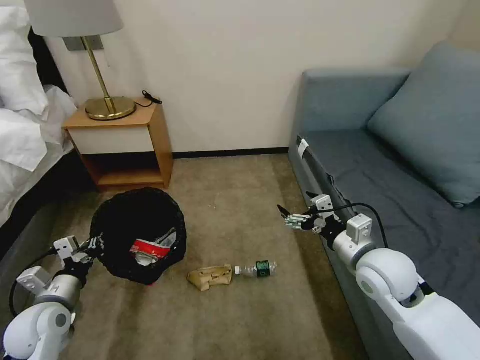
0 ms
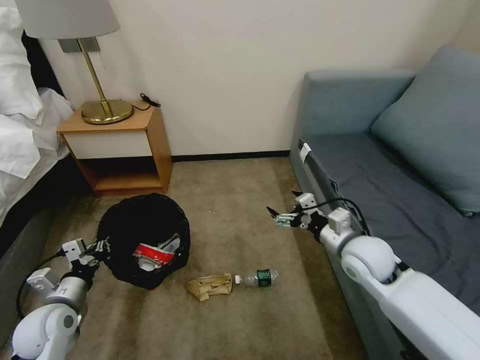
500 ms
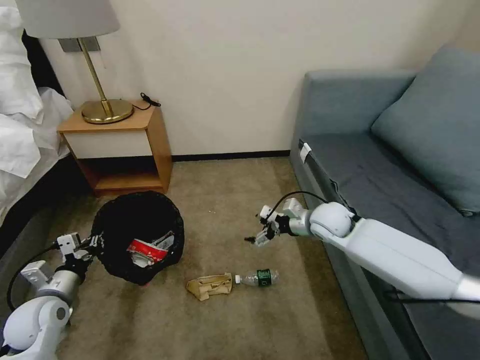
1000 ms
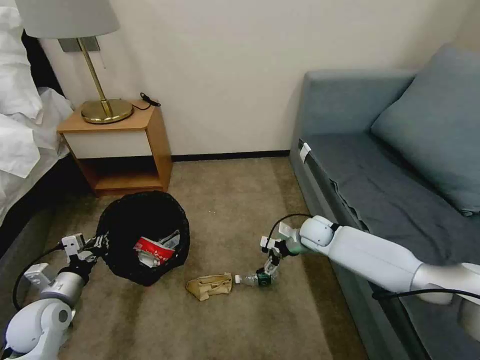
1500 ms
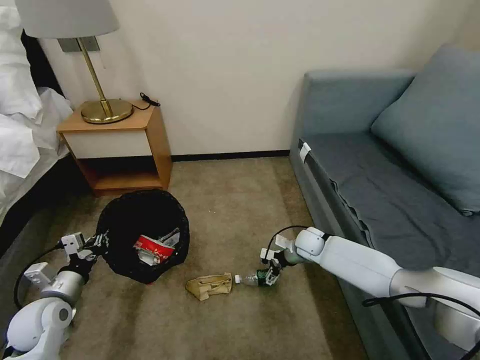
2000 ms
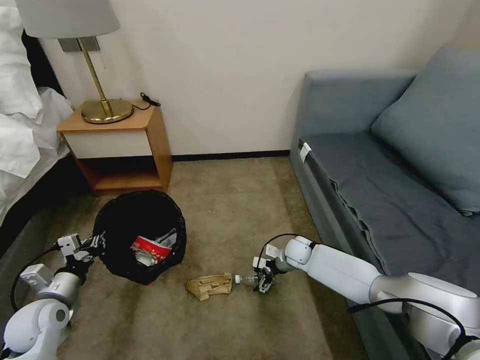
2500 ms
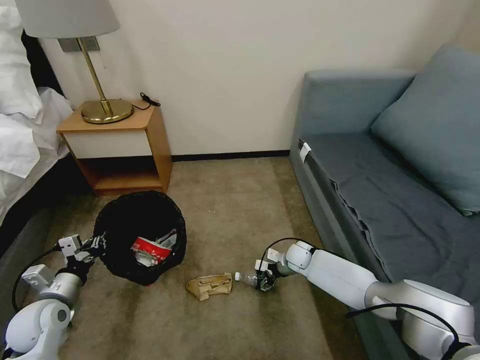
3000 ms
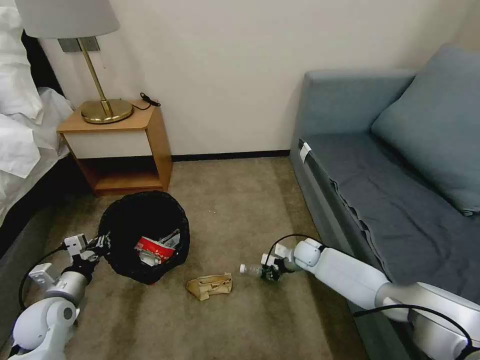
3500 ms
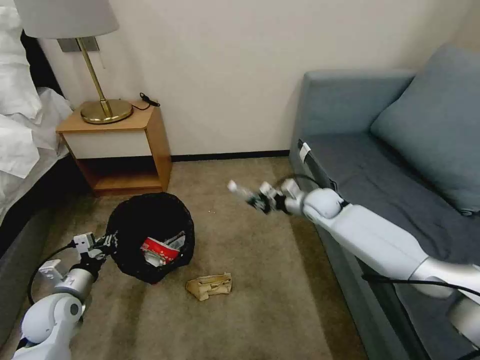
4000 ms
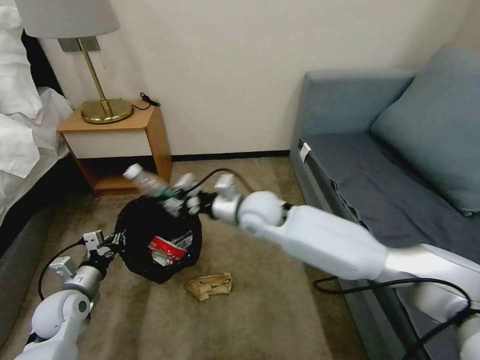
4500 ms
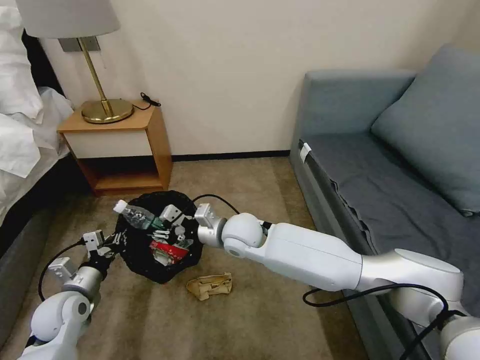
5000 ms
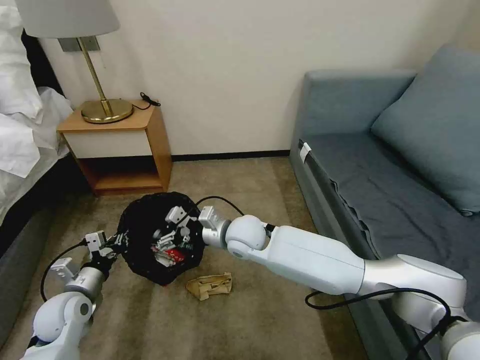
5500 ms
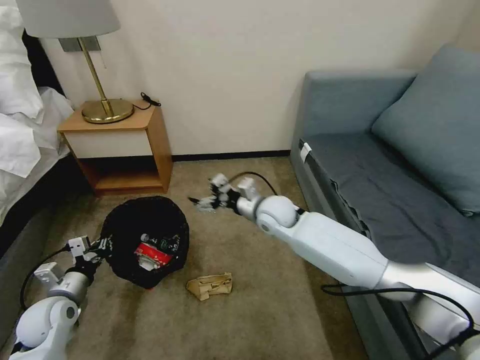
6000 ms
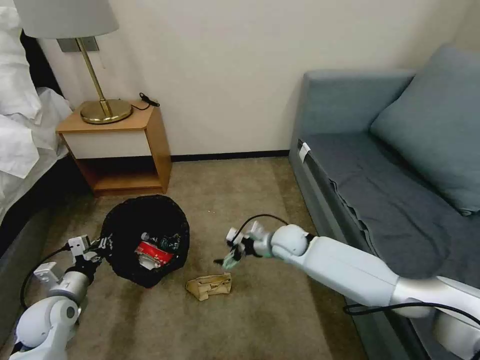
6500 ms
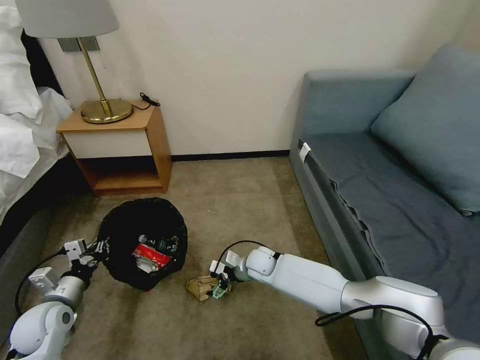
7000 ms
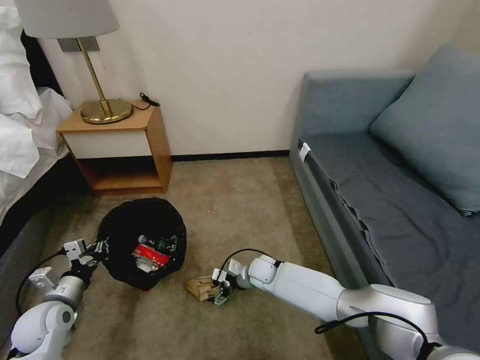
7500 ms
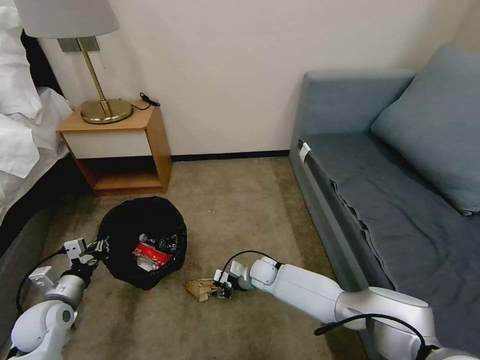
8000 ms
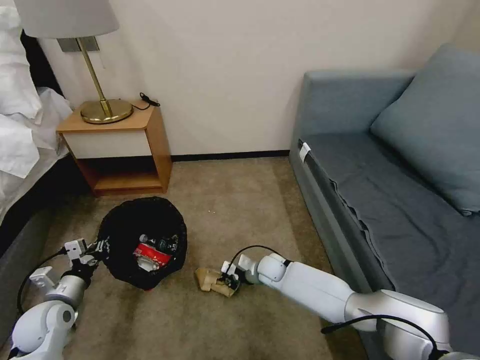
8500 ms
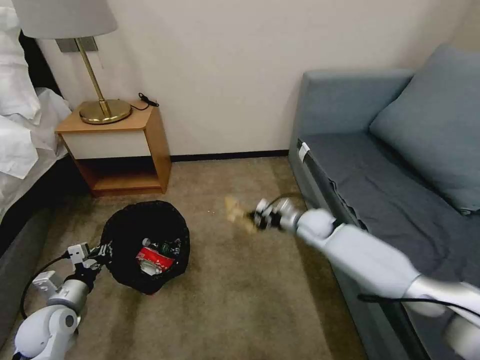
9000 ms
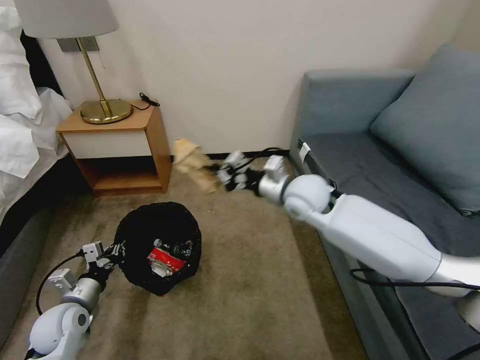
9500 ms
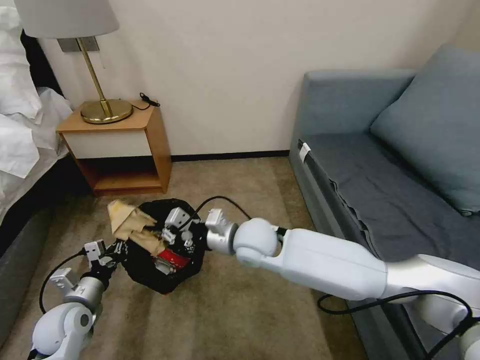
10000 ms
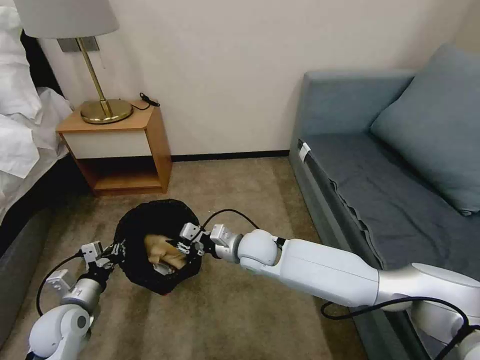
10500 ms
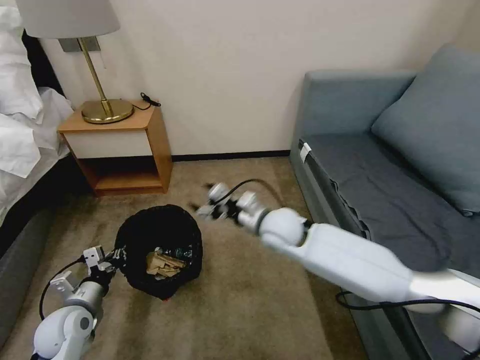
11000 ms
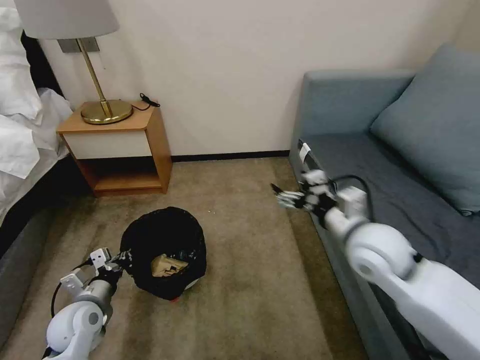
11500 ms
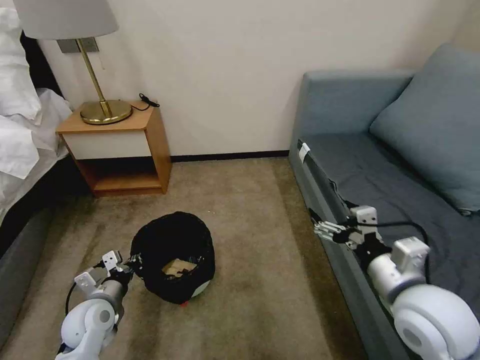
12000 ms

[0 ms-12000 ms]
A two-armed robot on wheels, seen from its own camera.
Task of the whole recording: Pick up the trash bin, then pick up the garbage on the floor and place it into the trash bin.
0 ms to 2000 ms: The right gripper shifts some 25 cm downward and forward.
2000 ms to 4000 ms: The right gripper shifts about 15 cm upward, and closes.
4000 ms to 6000 ms: The right gripper moves to the left, roughly 15 cm, and opens its fingers.
6000 ms to 8000 ms: The right gripper moves downward, approximately 25 cm, and closes.
8000 ms to 10000 ms: The right gripper goes about 25 cm upward, and closes up.
10000 ms to 12000 ms: The right gripper moves to the right and backward, about 30 cm, and opens.

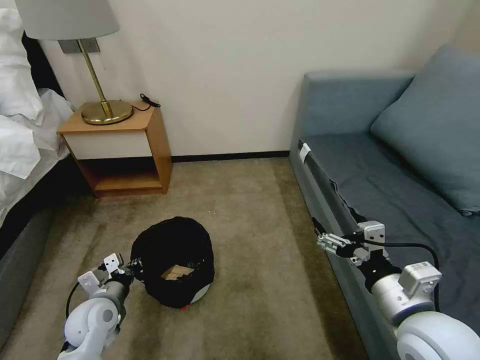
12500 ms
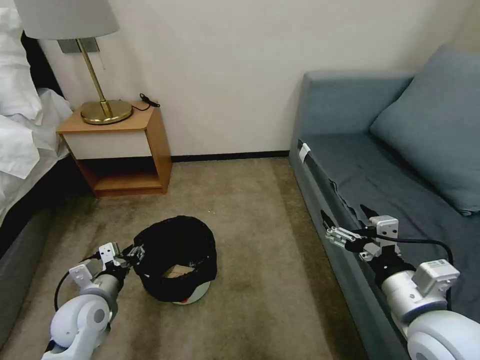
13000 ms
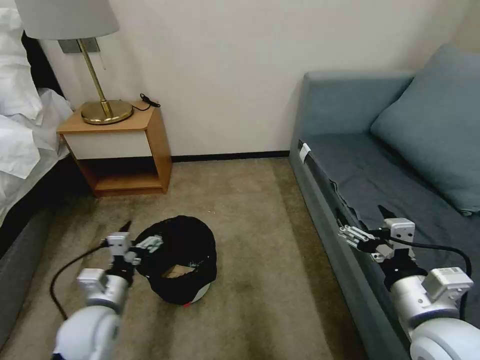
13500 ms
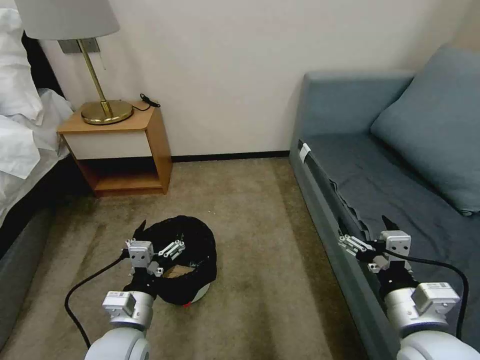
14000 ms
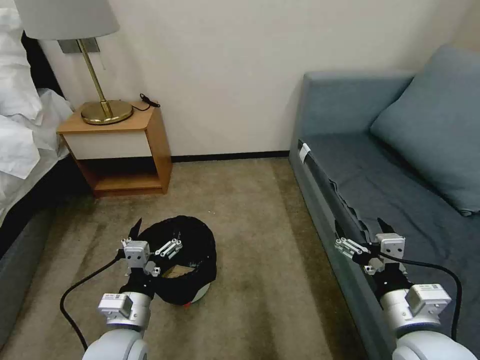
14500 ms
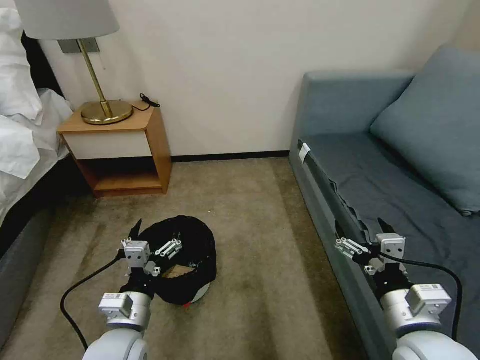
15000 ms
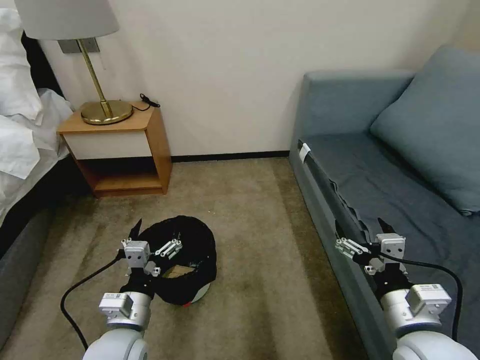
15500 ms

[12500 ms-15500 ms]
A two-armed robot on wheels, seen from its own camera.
Task of the whole recording: Pick up the trash bin, then pick up the garbage on the floor and place it into the trash bin.
12500 ms to 14000 ms: The left gripper goes some 15 cm to the right, backward and upward, and opens its fingers.
14000 ms to 15500 ms: The two grippers keep their place.

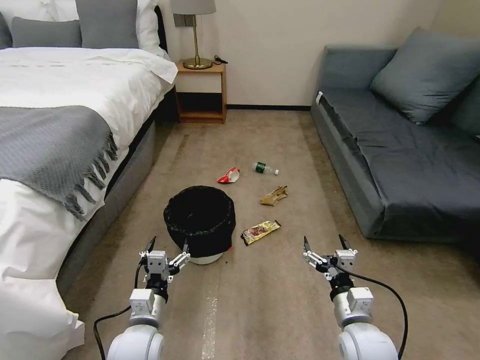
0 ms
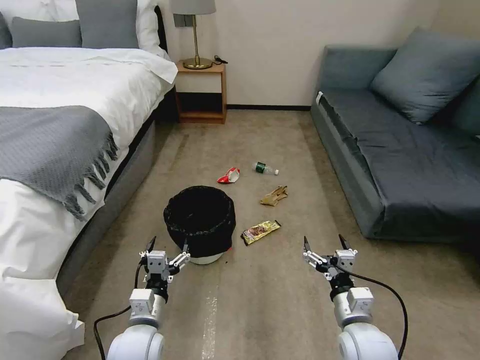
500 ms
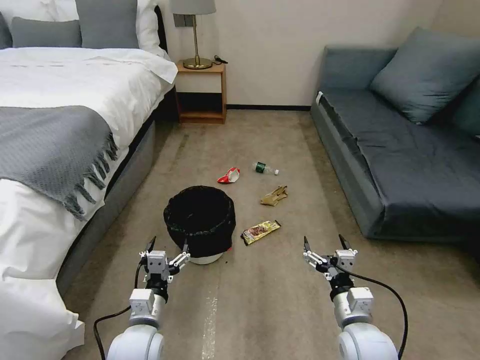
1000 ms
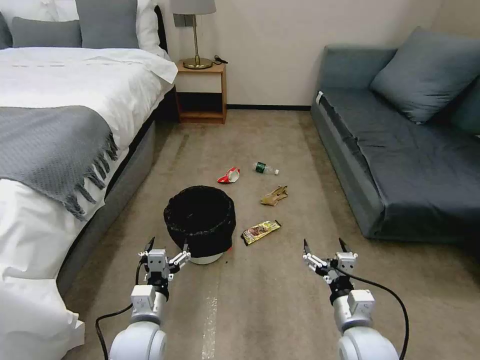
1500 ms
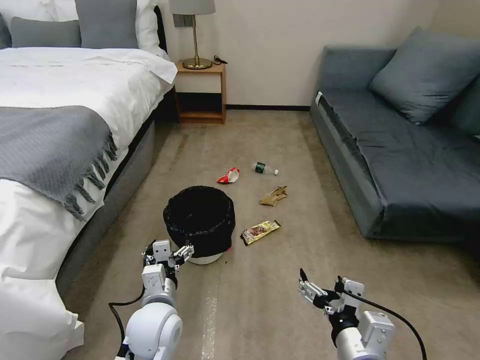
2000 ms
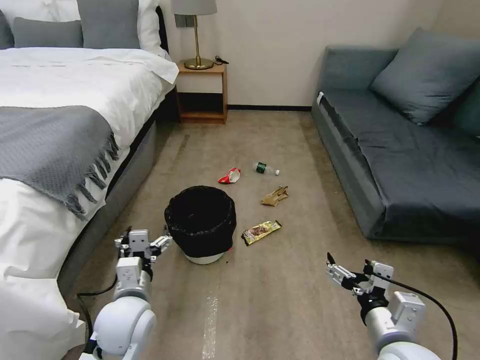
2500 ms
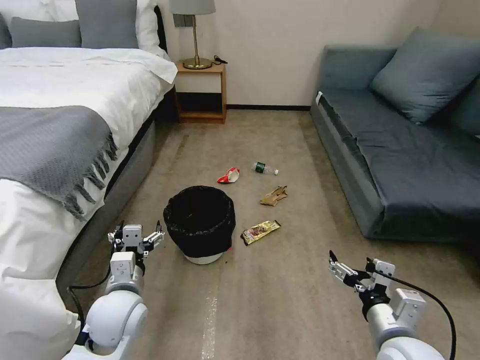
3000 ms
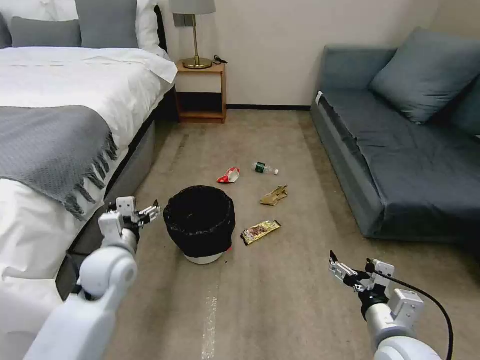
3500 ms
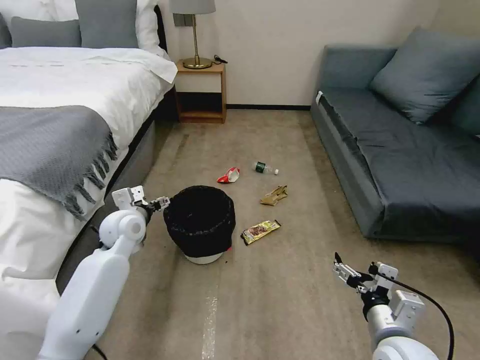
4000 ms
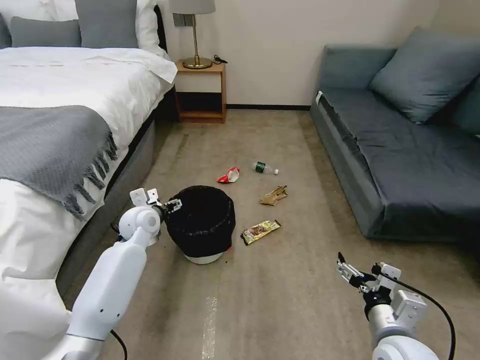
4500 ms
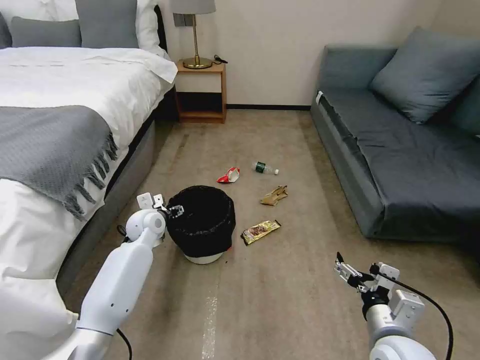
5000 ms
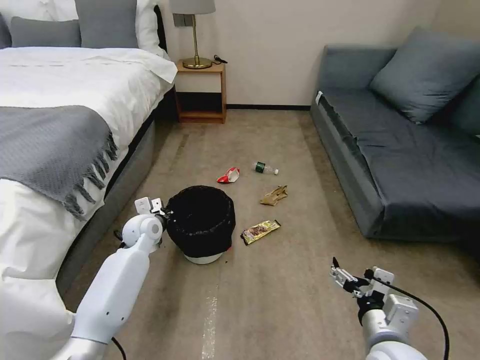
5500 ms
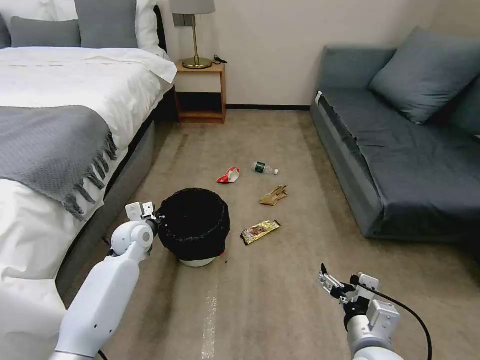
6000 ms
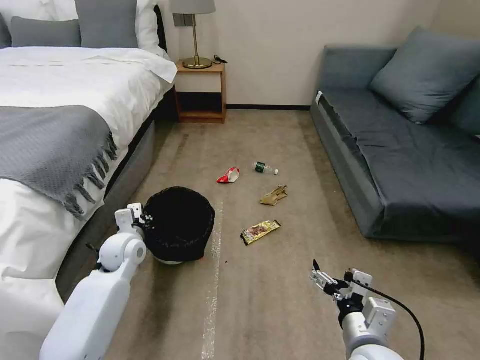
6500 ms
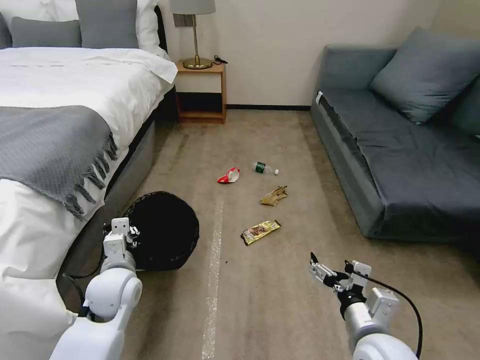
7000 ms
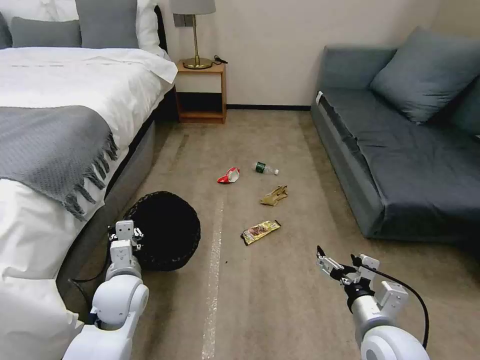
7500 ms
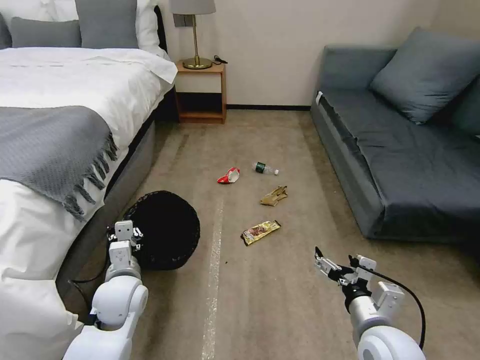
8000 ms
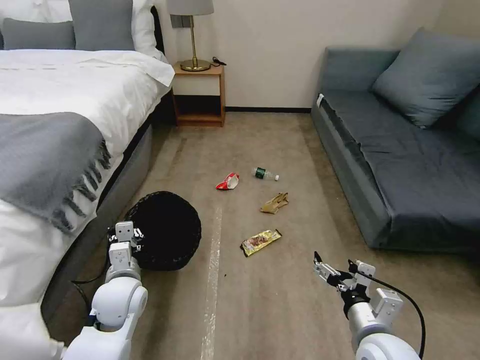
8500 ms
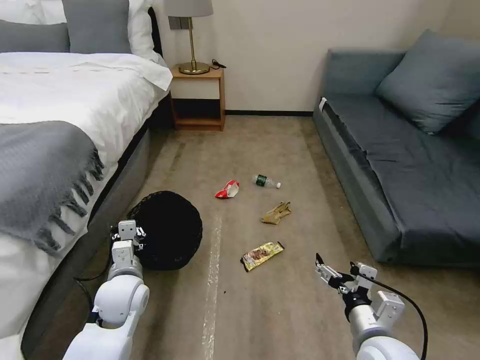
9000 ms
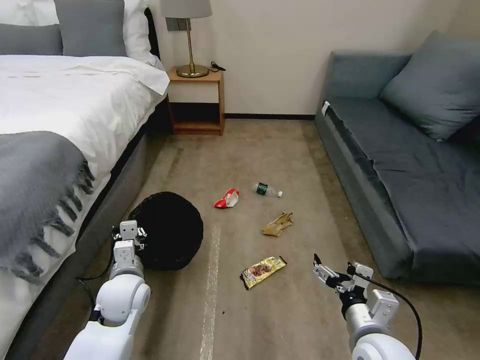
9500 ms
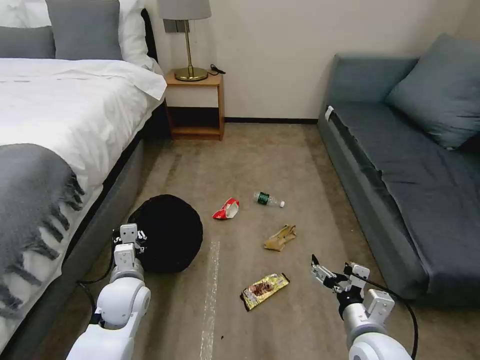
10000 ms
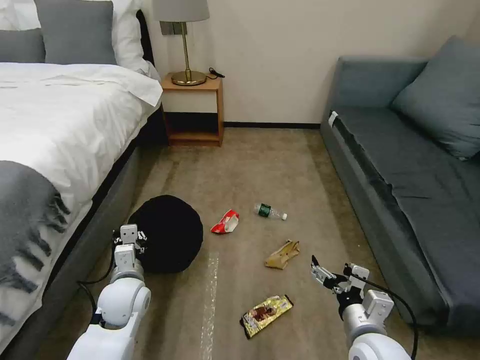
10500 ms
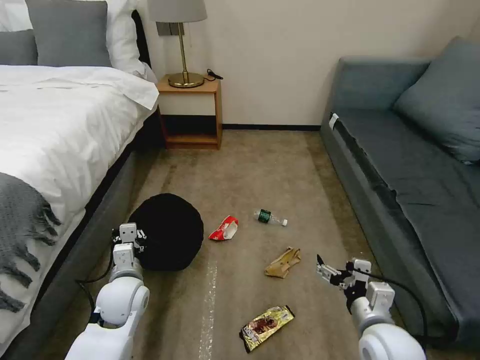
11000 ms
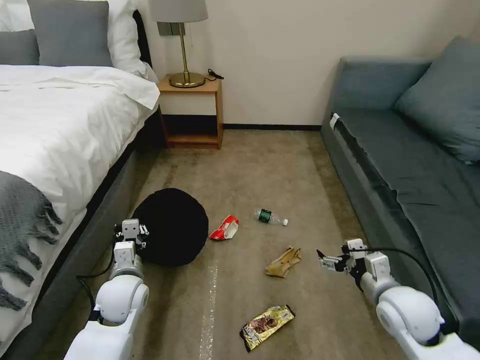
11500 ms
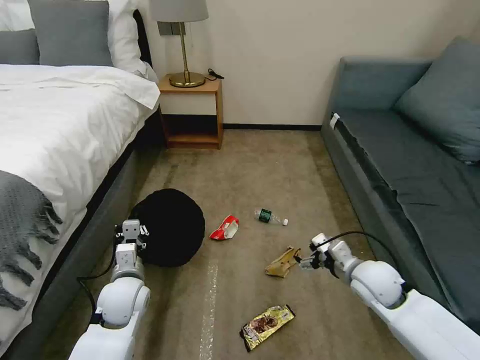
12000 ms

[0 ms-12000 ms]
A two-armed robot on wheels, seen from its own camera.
Task of the whole recording: Pick up the trash bin, then pick up the garbage on the floor and place it into the trash bin.
2000 ms to 4000 ms: The right gripper moves to the right, roughly 5 cm. The left gripper travels forward and to the left by roughly 20 cm.
4000 ms to 6000 ms: The left gripper shifts some 5 cm downward, and closes up.
6000 ms to 8000 ms: The left gripper heads backward, covering some 15 cm.
10000 ms to 12000 ms: The right gripper travels forward and to the right by some 15 cm.
